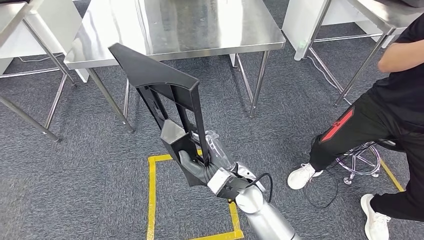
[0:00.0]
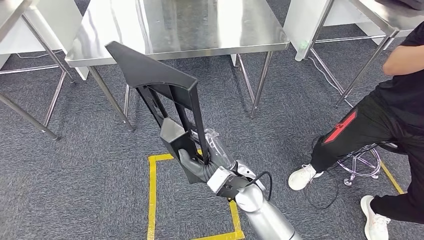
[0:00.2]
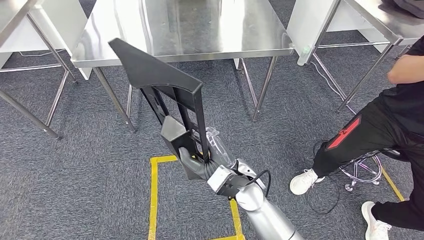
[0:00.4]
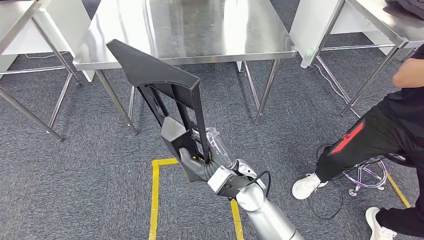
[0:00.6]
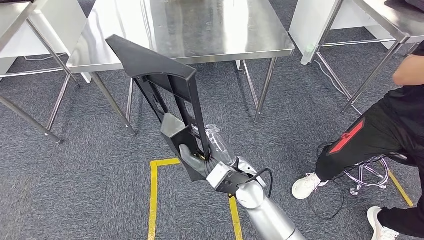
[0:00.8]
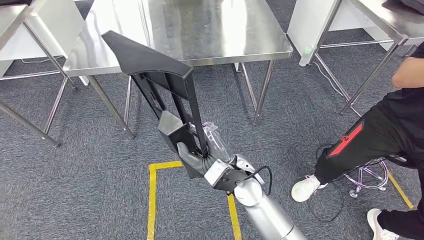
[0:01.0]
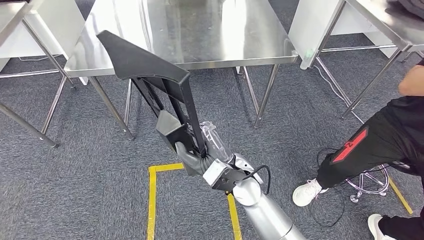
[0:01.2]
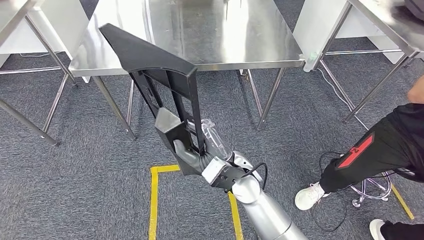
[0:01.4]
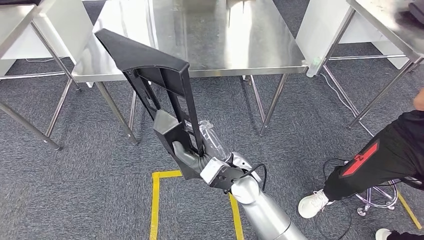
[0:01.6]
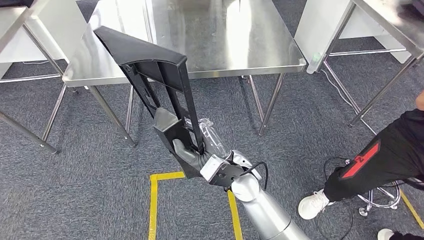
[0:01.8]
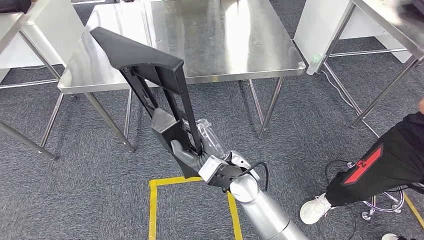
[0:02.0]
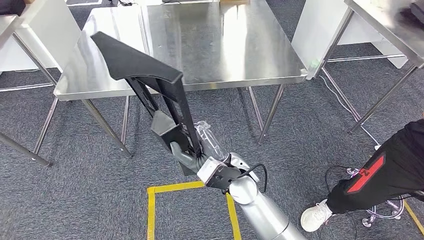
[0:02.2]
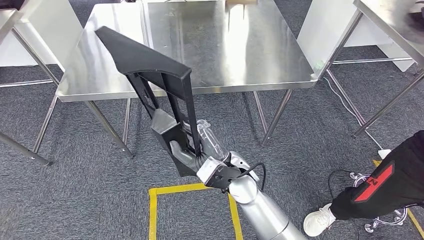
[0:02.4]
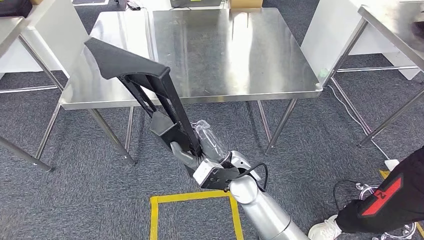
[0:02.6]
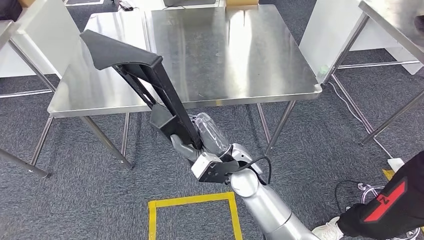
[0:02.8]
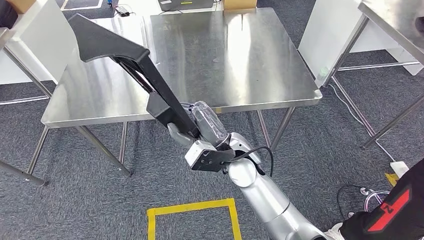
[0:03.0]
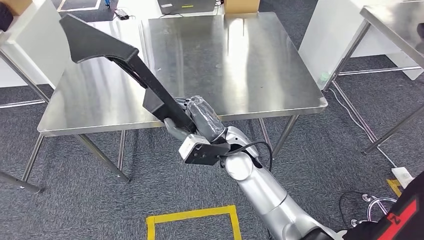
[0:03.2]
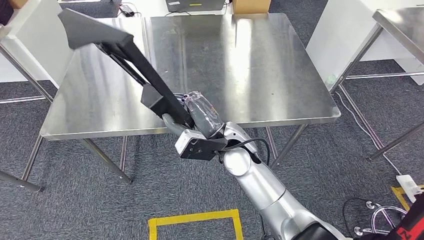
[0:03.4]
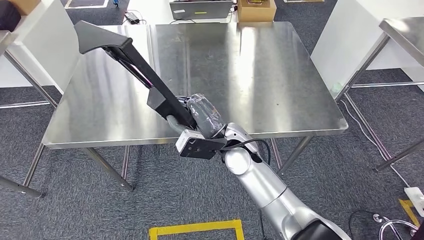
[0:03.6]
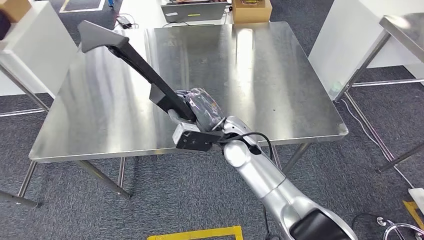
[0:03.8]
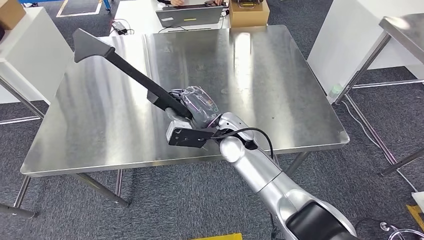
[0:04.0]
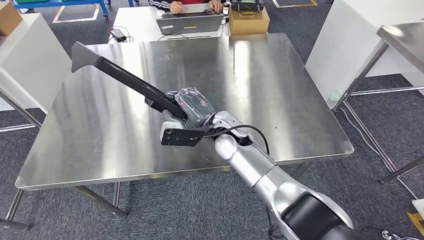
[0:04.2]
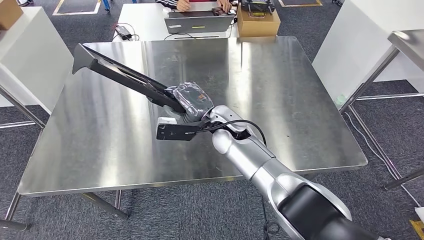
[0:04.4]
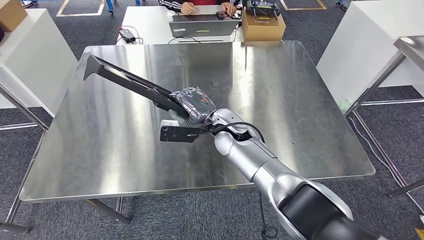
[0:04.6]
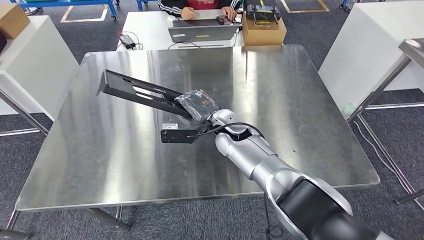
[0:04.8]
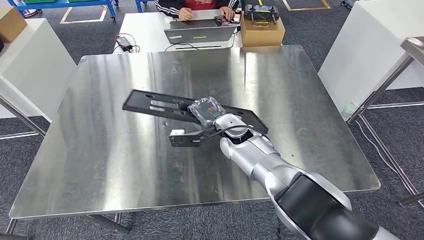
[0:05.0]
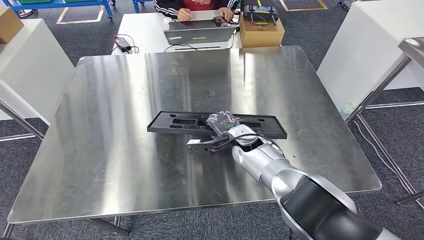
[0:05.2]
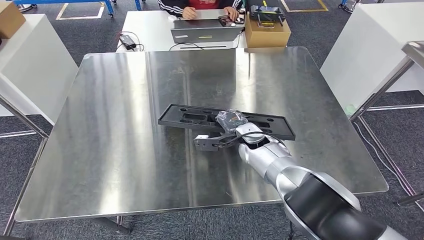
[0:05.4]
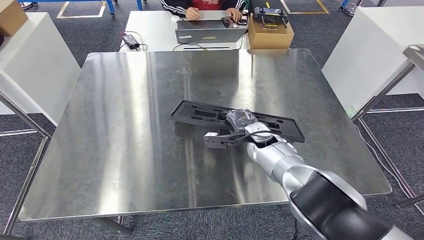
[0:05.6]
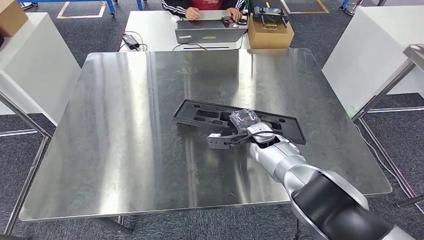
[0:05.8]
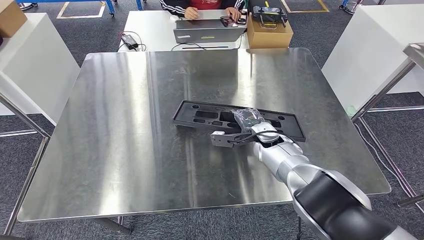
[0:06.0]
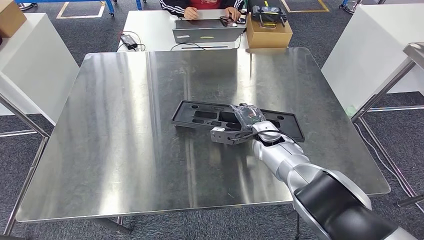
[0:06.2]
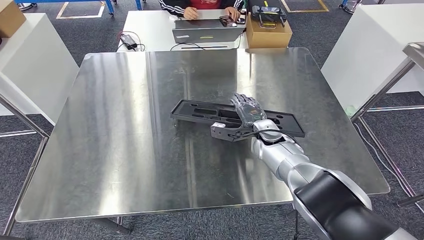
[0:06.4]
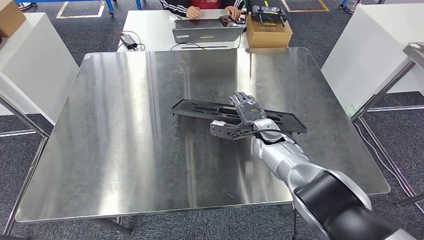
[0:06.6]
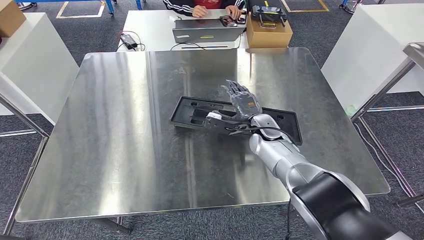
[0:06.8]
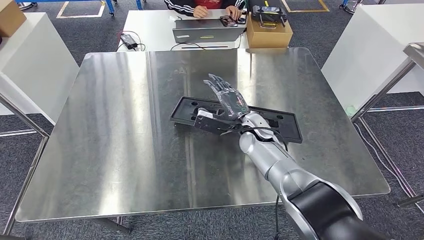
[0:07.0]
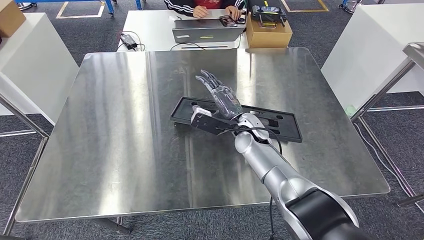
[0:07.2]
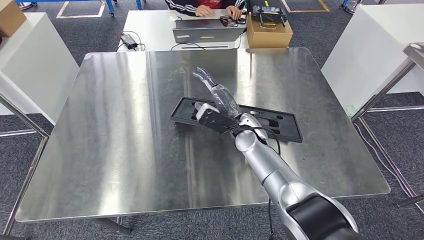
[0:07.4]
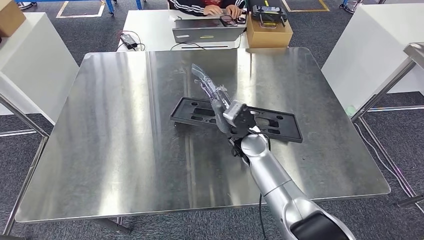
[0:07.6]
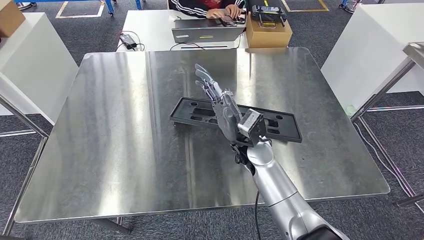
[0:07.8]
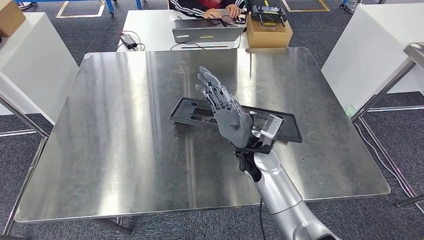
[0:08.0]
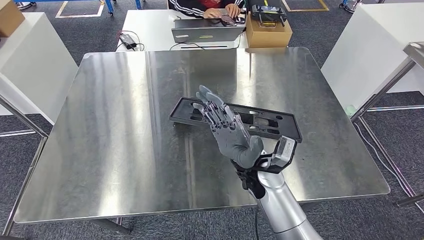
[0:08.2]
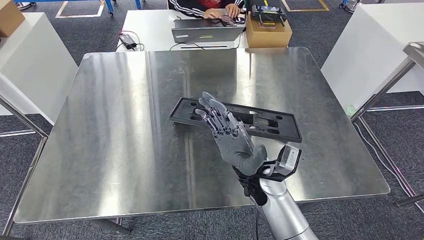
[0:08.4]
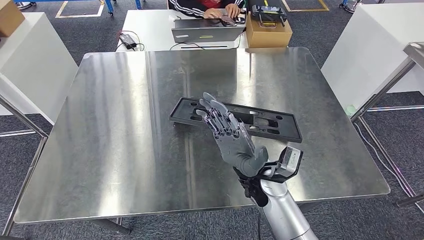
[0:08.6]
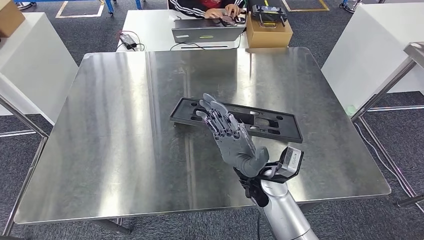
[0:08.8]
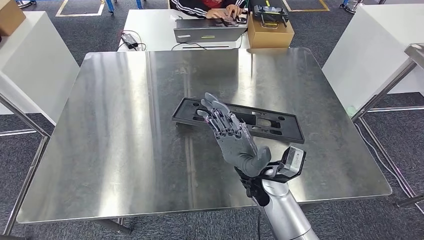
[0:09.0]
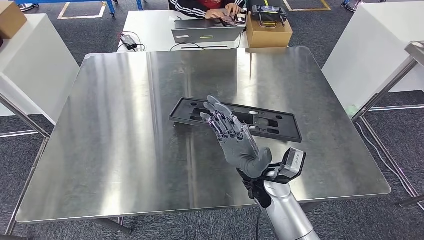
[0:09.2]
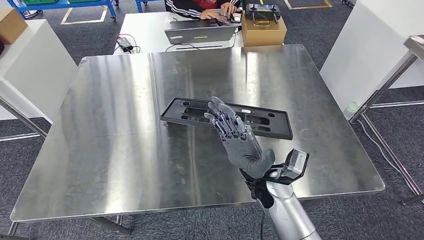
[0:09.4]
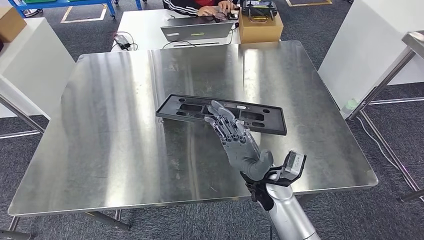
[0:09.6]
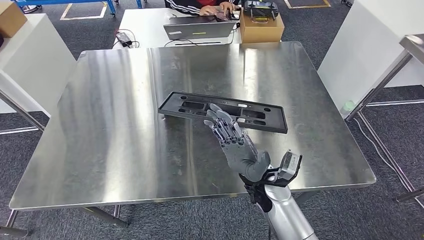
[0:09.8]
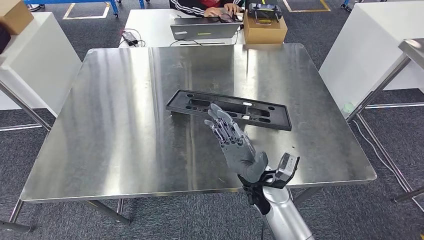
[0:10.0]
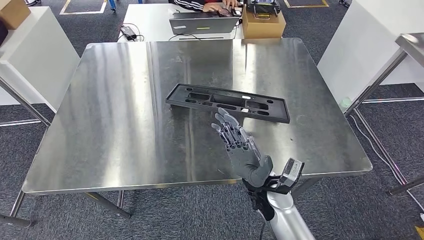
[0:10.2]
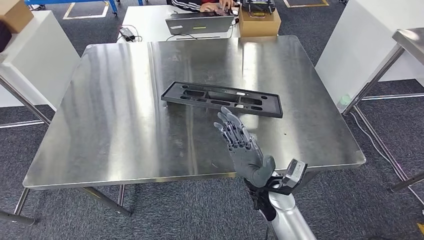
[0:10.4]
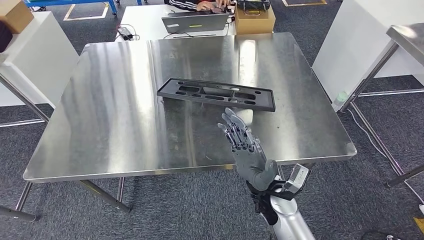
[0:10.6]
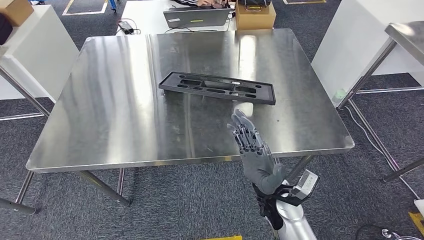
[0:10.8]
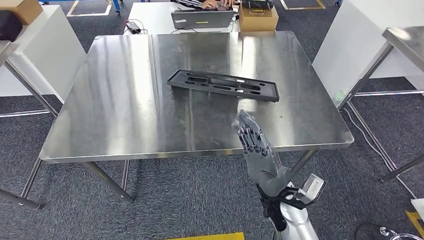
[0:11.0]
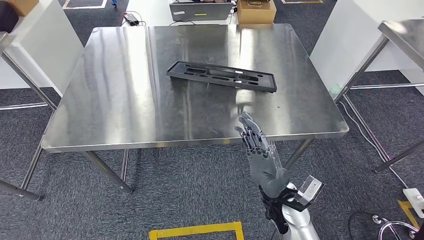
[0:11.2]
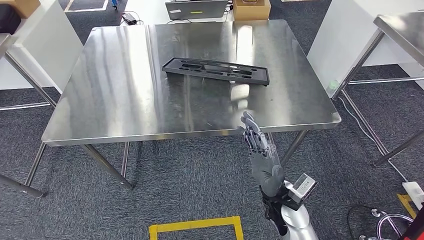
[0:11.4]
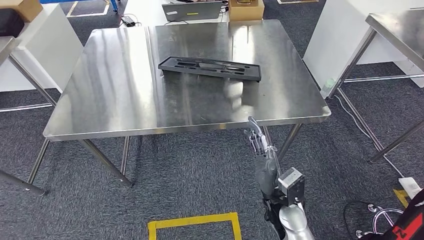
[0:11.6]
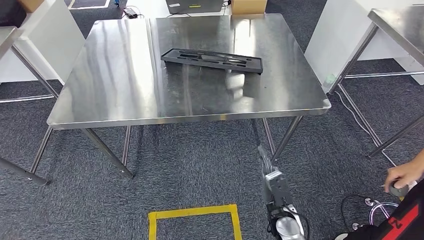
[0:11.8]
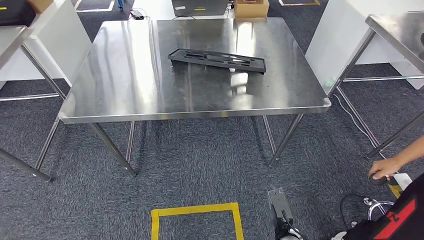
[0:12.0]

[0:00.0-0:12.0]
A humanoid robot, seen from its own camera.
Step, 0:00.0 to 0:02.0: Move the large material to the workbench.
0:06.0 to 0:07.6: The right hand goes approximately 10 cm to the left and upward.
0:07.6 to 0:09.0: The right hand goes approximately 10 cm backward.

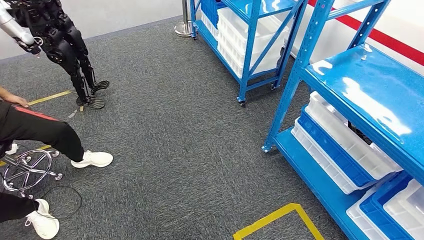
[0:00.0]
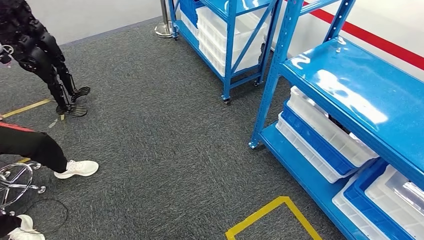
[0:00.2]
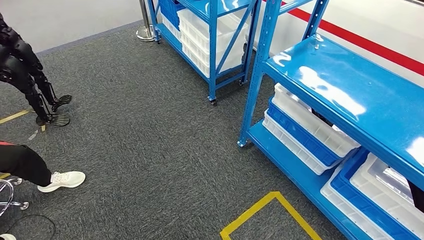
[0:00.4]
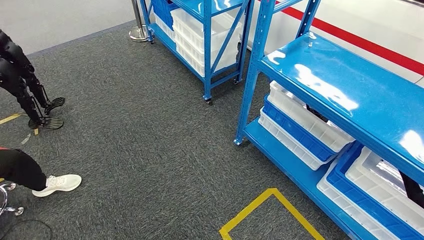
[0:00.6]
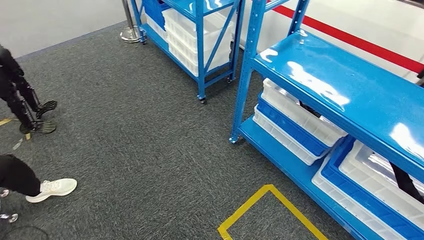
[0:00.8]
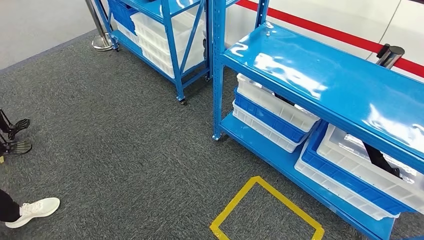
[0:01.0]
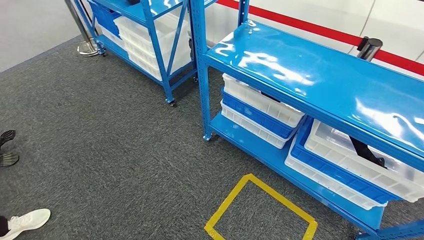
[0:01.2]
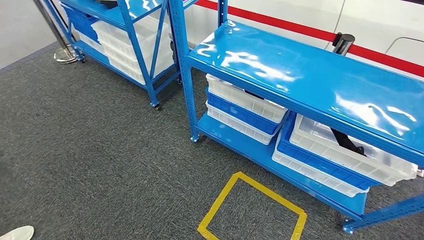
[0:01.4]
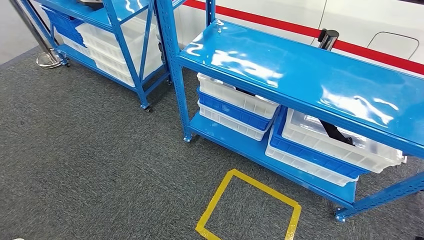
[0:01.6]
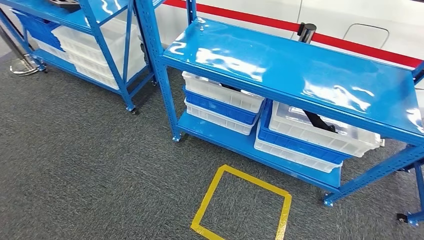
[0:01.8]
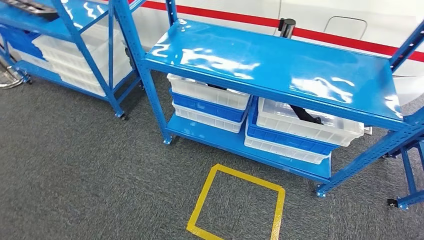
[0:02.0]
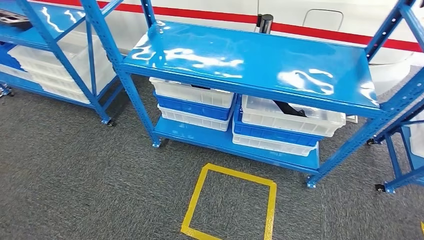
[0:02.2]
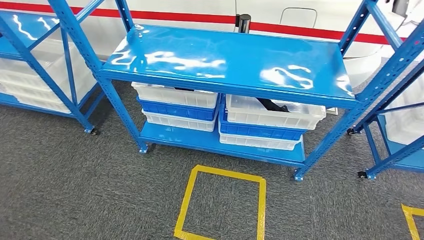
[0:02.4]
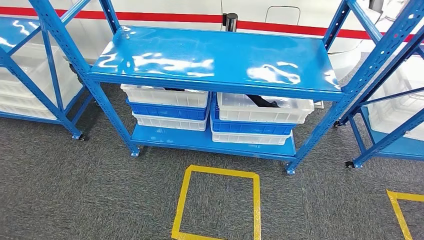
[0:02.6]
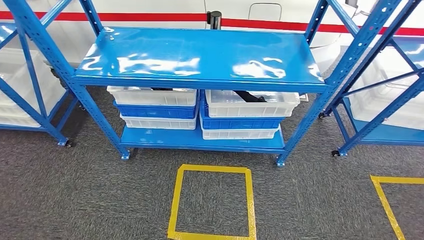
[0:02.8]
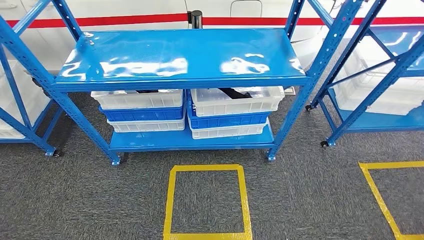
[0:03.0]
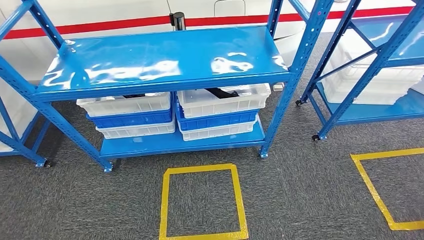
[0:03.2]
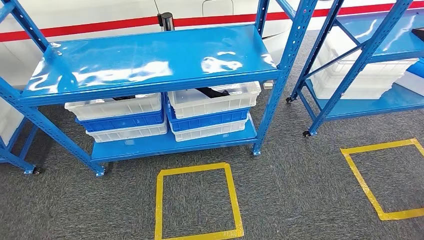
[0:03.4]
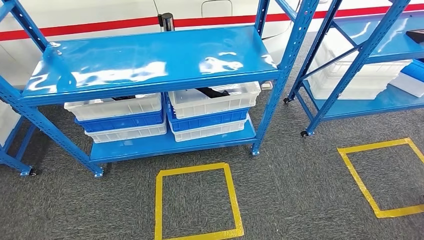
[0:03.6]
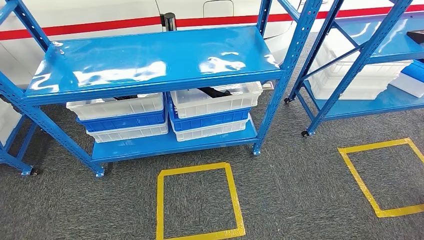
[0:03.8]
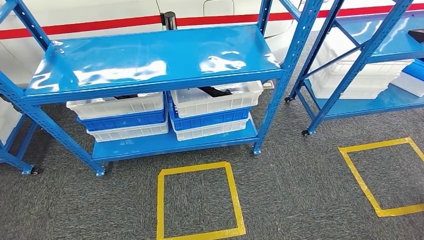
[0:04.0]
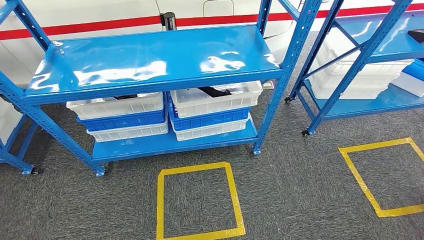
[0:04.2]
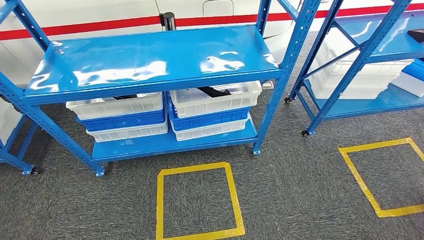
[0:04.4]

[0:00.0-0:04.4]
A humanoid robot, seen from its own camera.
Step, 0:00.0 to 0:04.4: Move to the initial position of the shelf.
